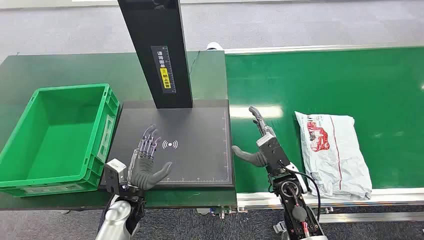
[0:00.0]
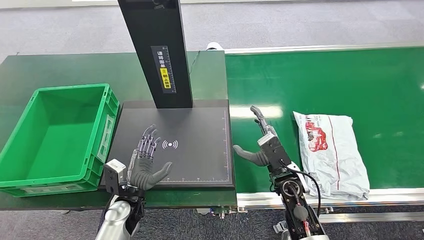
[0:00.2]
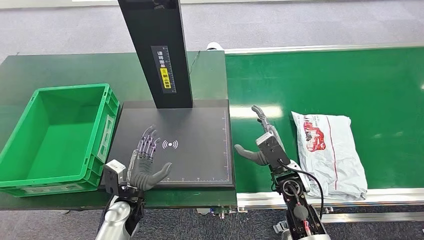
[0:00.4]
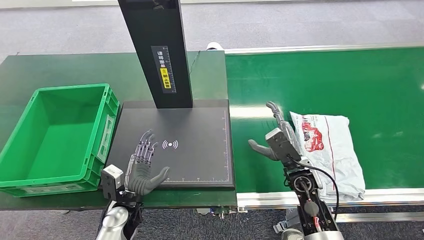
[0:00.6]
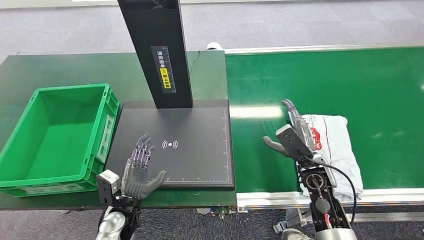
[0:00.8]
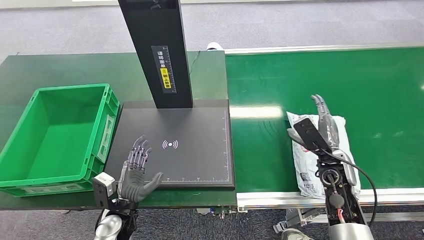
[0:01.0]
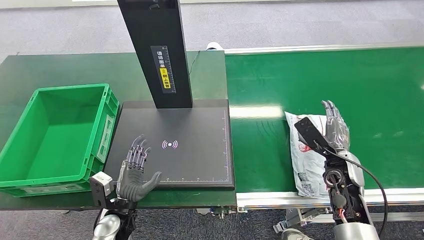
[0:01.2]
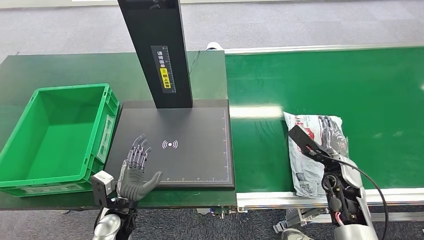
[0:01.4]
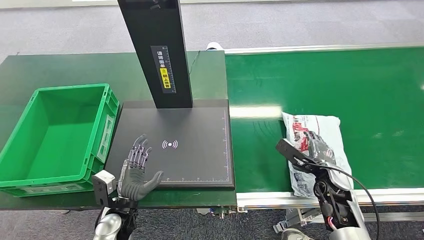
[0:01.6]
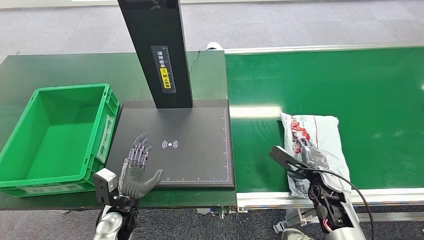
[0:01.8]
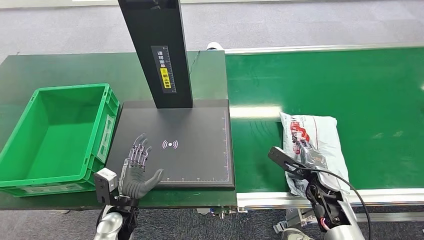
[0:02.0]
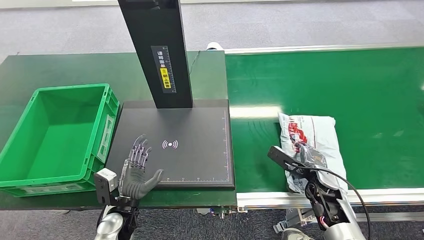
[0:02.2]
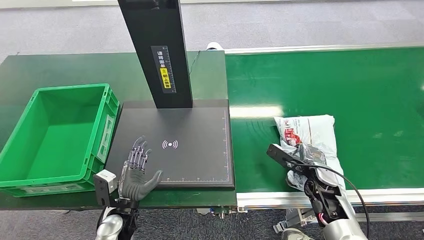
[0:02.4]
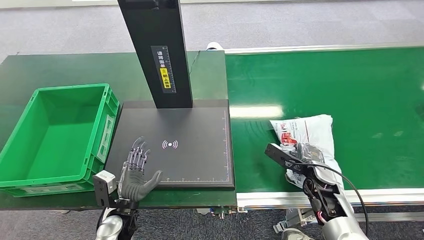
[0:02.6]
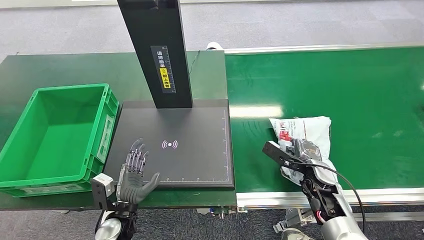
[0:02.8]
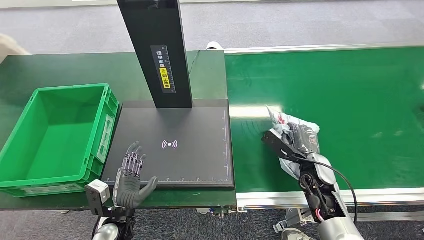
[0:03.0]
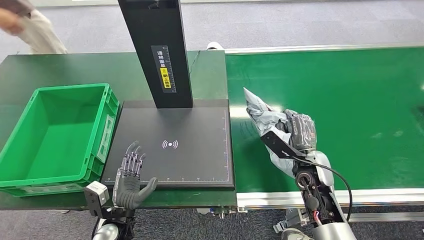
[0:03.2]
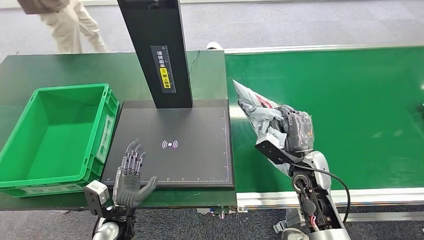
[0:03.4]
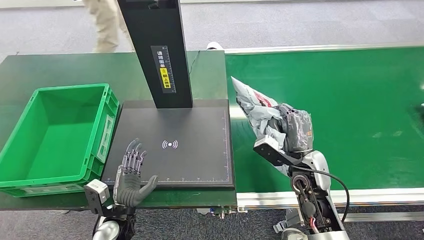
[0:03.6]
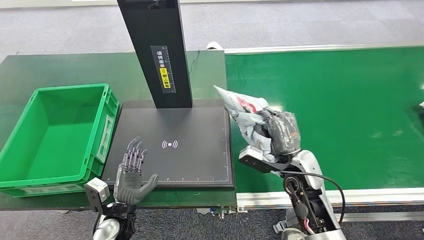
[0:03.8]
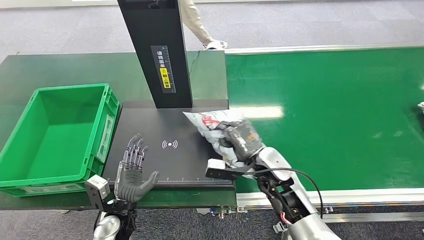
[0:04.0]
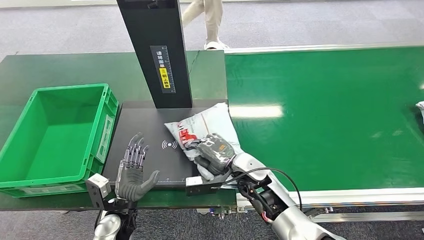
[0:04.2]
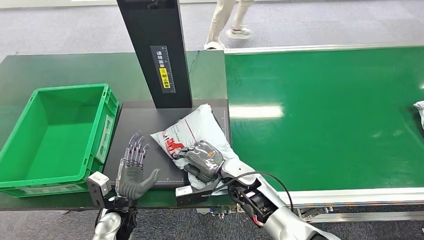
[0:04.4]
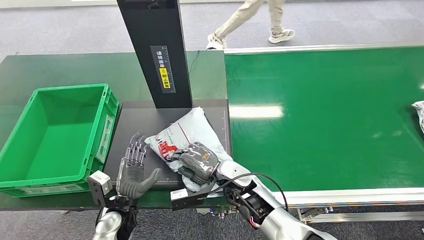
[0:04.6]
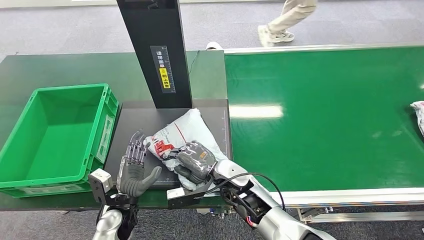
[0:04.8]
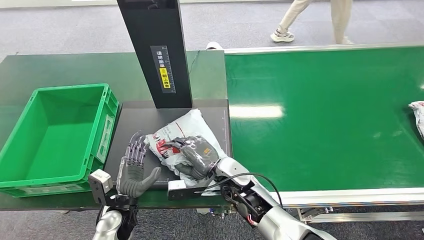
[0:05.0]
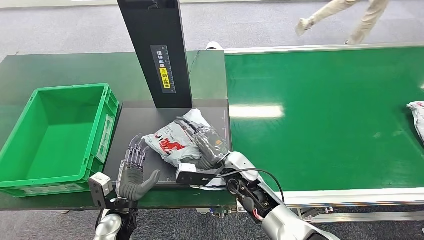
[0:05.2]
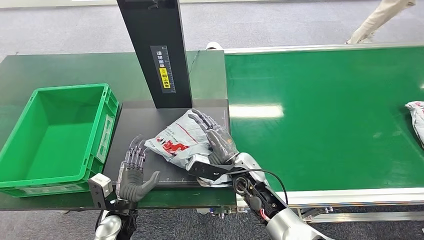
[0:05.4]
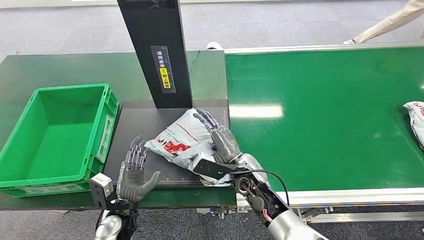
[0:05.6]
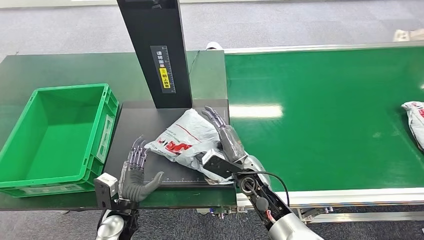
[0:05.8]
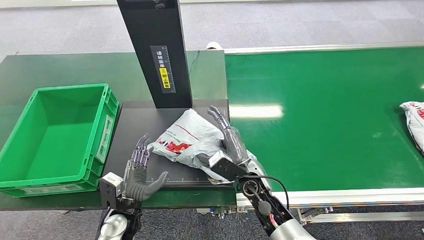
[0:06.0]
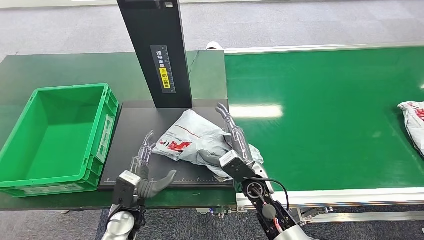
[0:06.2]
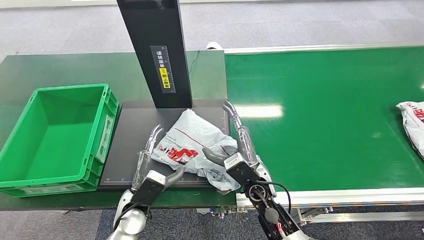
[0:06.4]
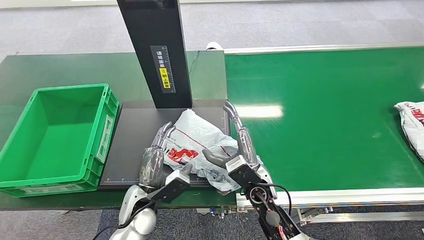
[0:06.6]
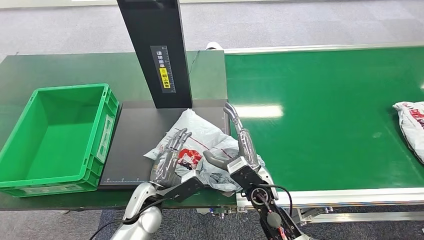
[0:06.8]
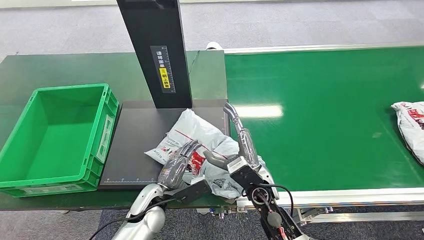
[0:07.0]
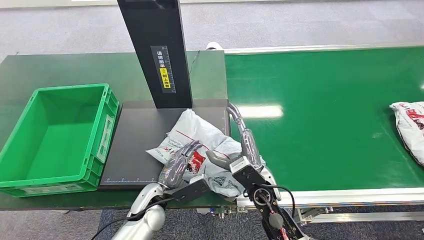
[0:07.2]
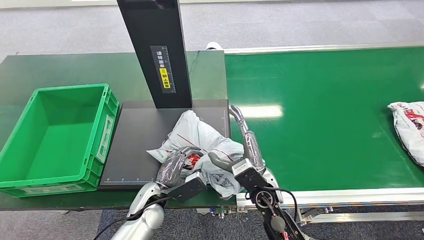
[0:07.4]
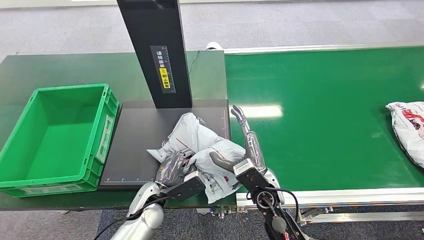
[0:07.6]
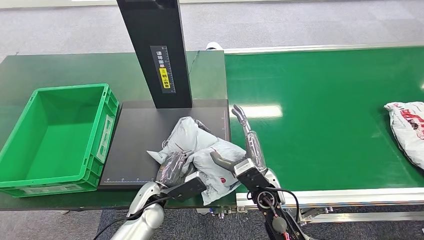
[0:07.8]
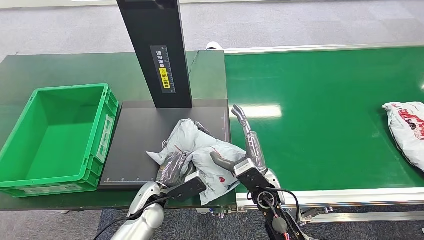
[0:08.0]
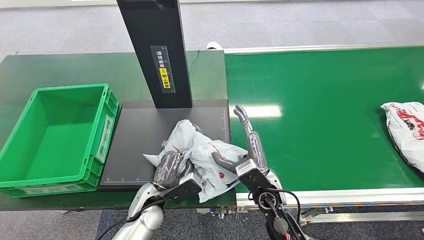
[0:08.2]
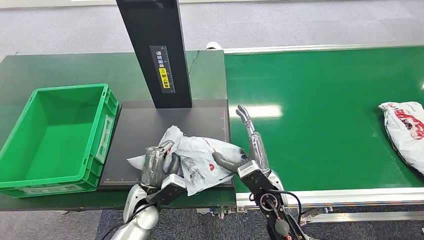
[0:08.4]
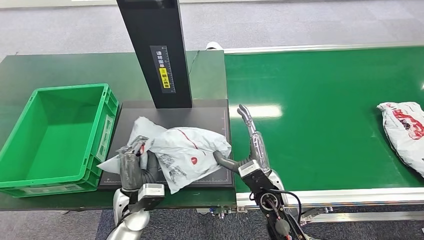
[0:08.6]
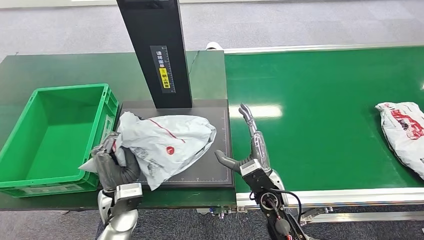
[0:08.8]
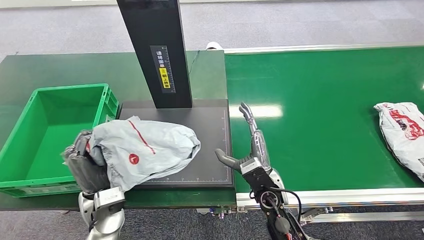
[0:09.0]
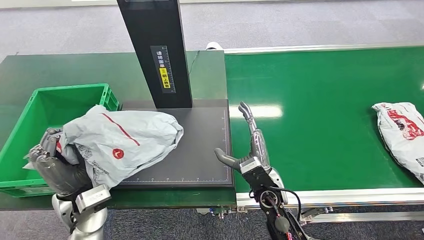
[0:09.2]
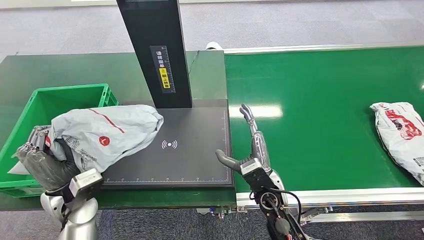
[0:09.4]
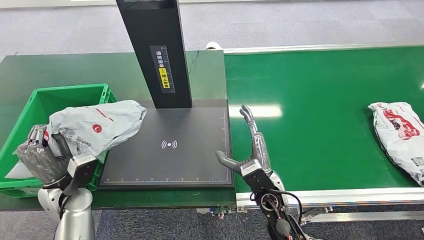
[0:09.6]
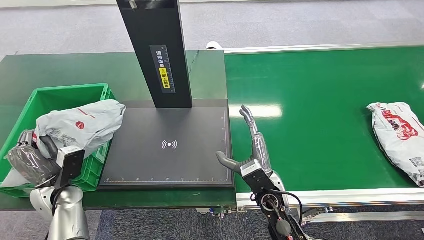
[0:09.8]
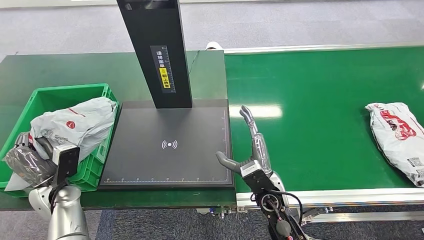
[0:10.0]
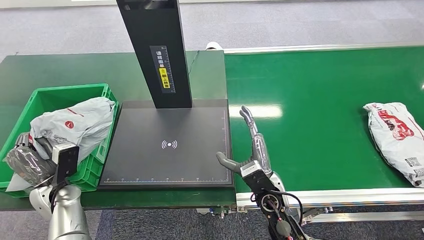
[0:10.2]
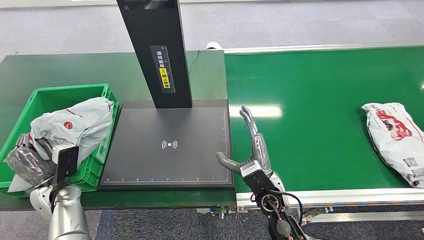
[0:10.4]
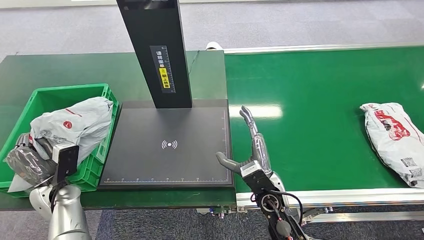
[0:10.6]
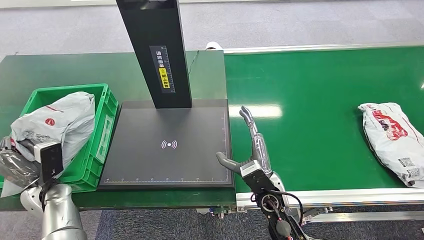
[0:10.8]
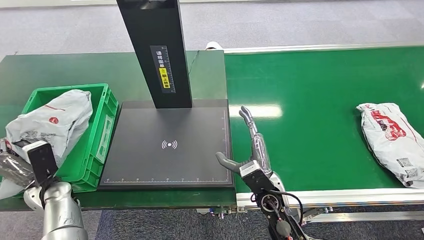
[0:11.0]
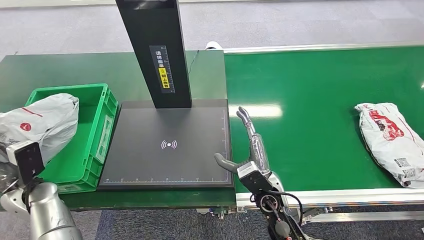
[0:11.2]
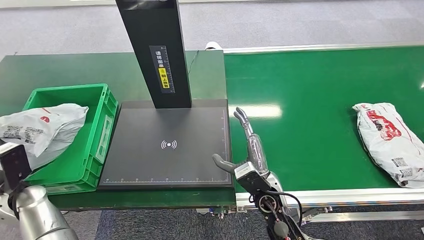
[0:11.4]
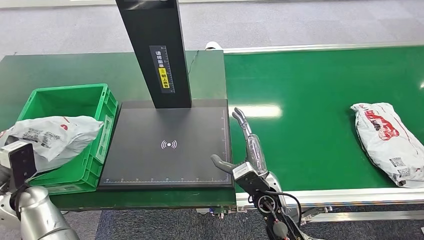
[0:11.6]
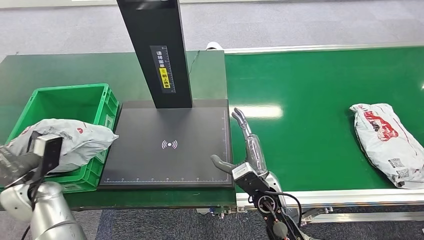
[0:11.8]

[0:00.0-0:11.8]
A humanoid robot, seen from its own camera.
Step, 0:00.0 to 0:03.6: Pick up the package from the conveyor belt.
Step, 0:03.8 to 0:06.2: Place the package onto the inbound machine.
Step, 0:06.4 to 0:08.8: Pick up the package from the inbound machine.
0:01.4 to 0:03.0: The right hand is displaced to the left by about 5 cm.
0:06.0 to 0:07.4: The left hand travels to the right by about 5 cm.
0:07.4 to 0:08.8: The left hand travels upward by approximately 5 cm.
0:08.8 to 0:10.4: The left hand travels to the left by approximately 20 cm.
0:10.4 to 0:11.8: The left hand changes place by roughly 5 cm.

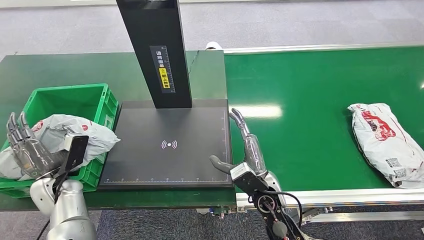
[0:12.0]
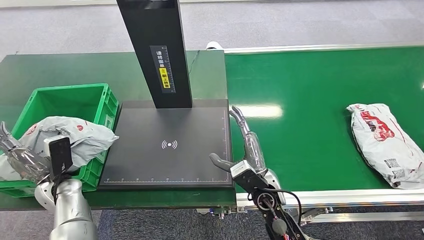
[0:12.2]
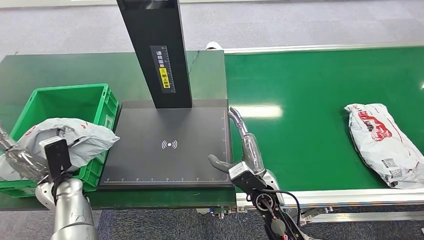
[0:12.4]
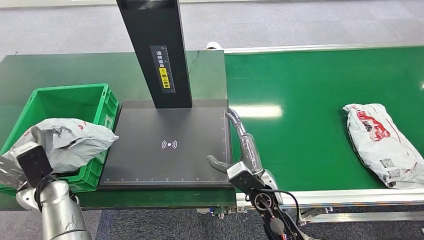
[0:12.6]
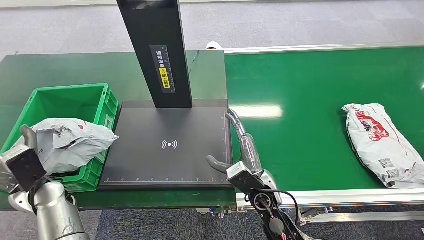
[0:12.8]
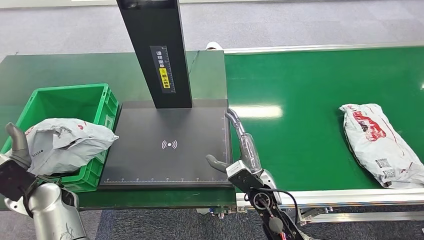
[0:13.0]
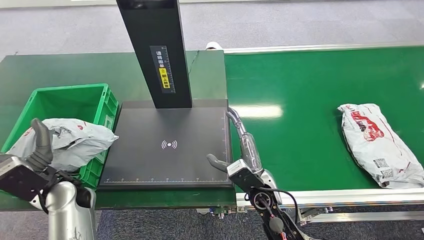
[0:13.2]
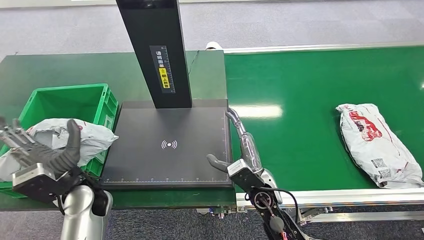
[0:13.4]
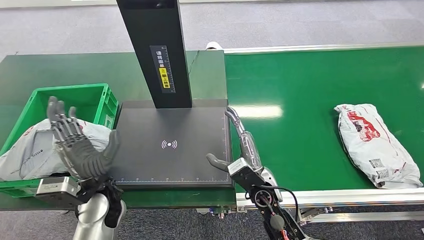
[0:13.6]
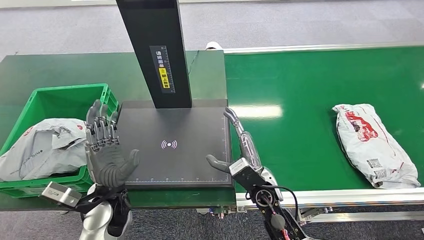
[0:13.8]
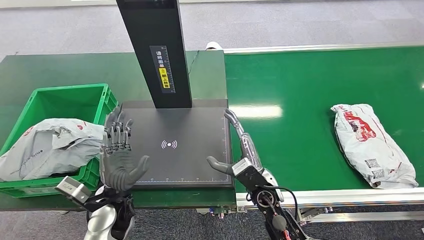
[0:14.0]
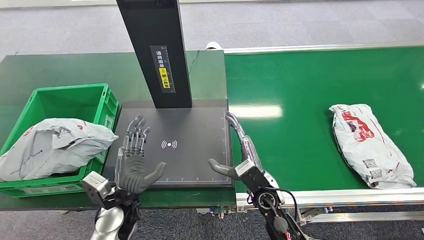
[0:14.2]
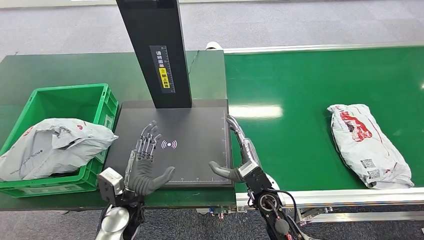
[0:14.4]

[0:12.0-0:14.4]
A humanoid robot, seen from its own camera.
Step, 0:12.0 to 0:14.4: Place the package into the parcel locker.
0:12.0 to 0:13.2: The left hand heads to the right and upward, covering about 10 cm.
0:13.2 to 0:14.4: The left hand travels to the right and downward by some 15 cm.

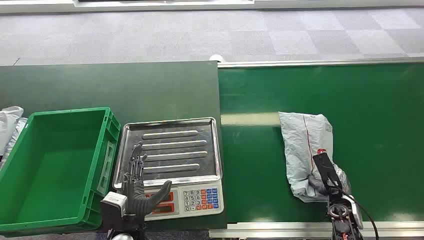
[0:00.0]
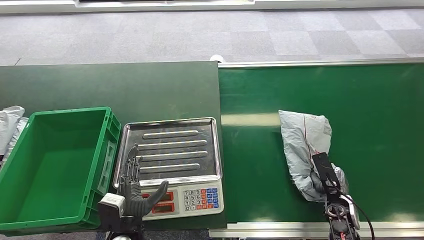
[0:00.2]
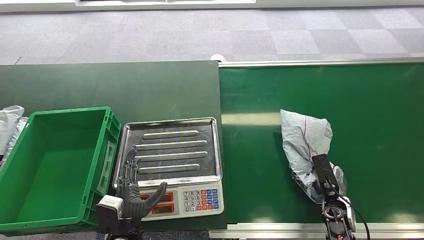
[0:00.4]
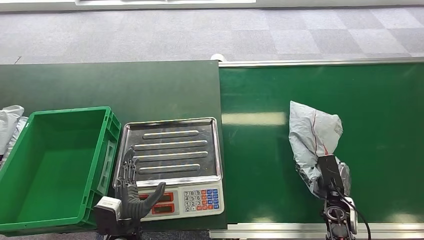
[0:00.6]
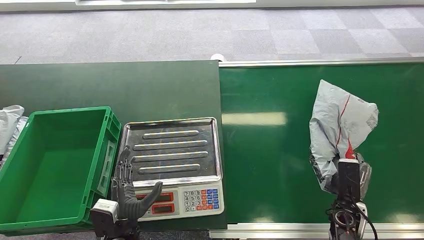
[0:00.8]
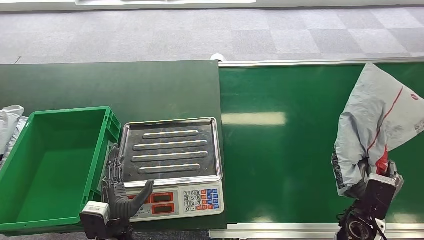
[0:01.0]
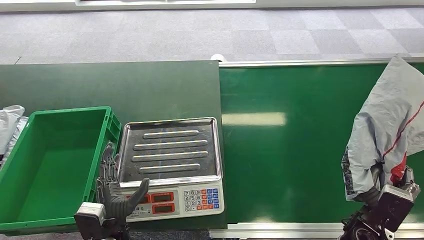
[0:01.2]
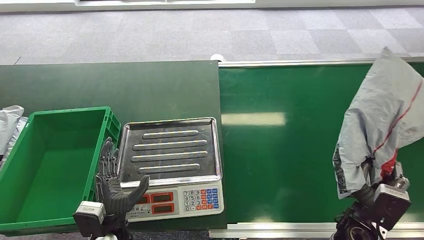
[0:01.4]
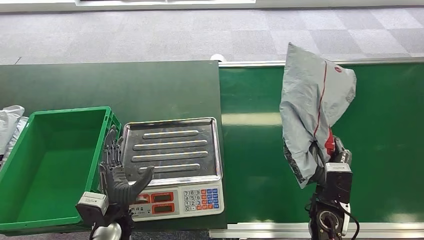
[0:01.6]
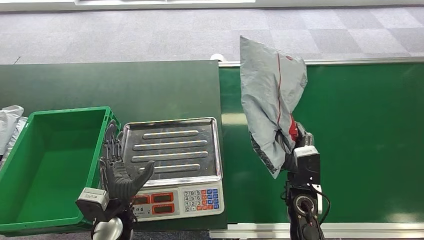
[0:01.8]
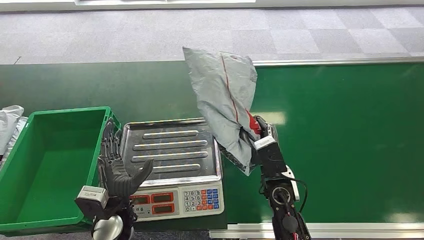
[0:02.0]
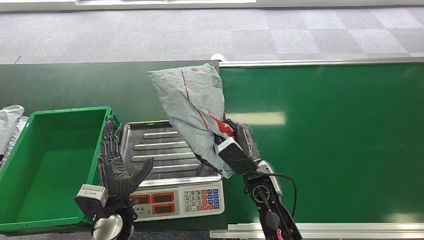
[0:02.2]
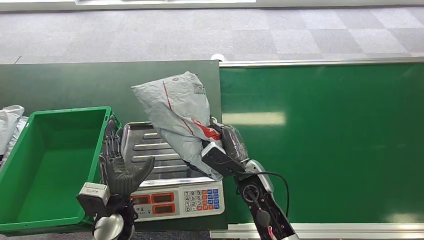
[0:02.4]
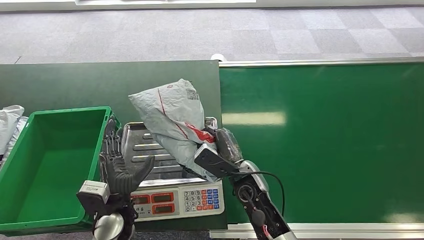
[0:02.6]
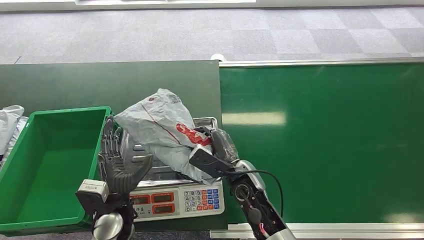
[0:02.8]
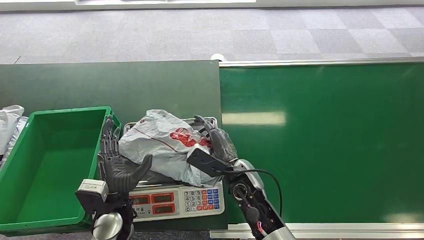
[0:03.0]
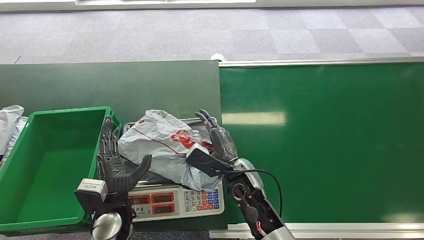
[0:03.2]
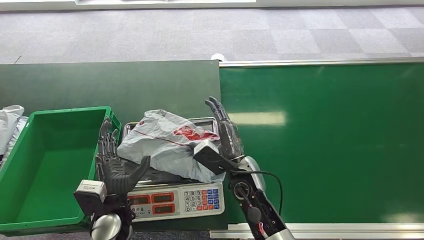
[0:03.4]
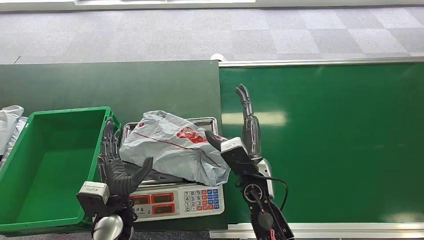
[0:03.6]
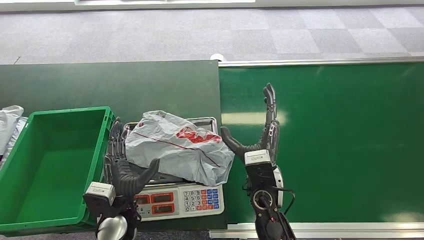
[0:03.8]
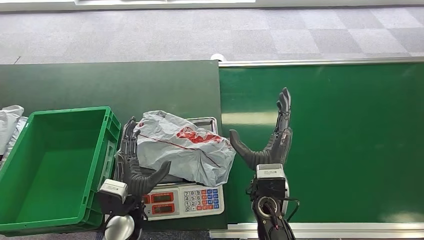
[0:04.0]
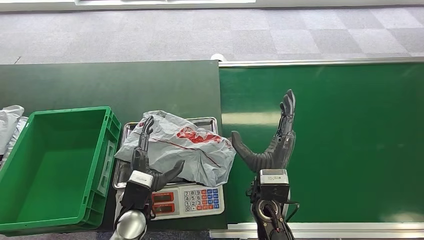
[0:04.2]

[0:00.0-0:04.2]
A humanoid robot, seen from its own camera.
Step, 0:00.0 to 0:01.2: Pick up the package from the conveyor belt.
Step, 0:02.0 to 0:03.6: Place the package onto the inbound machine.
0:02.8 to 0:04.2: The right hand is displaced upward by approximately 5 cm.
